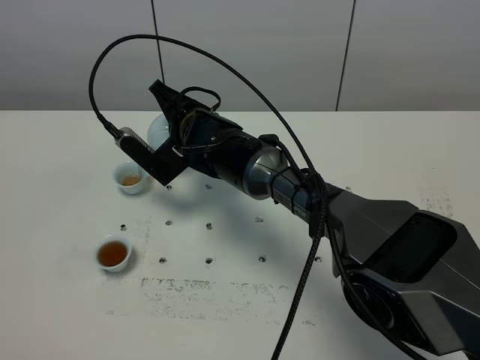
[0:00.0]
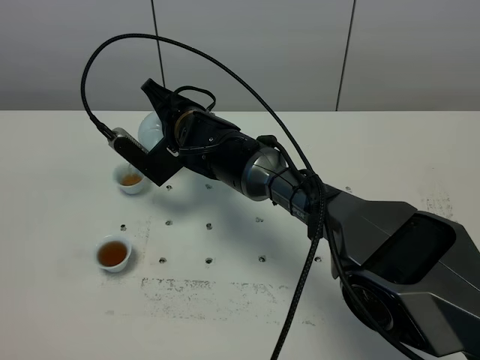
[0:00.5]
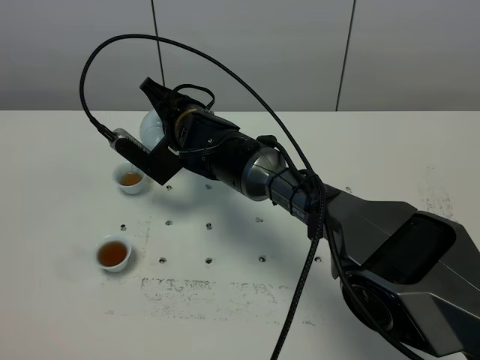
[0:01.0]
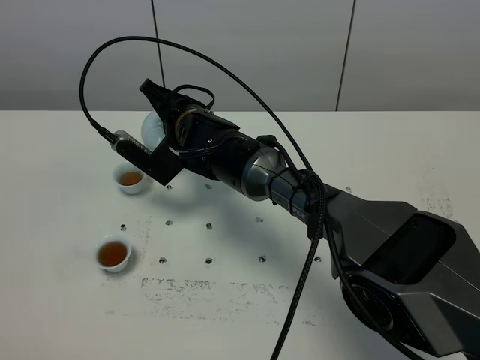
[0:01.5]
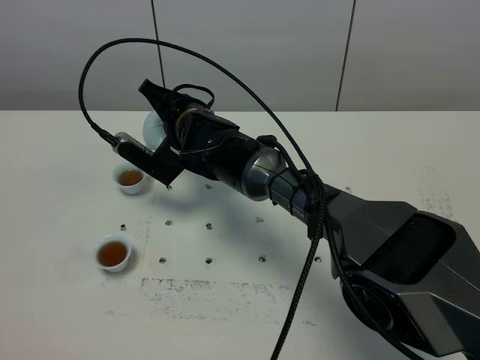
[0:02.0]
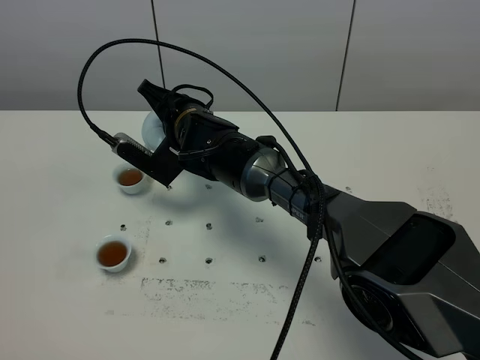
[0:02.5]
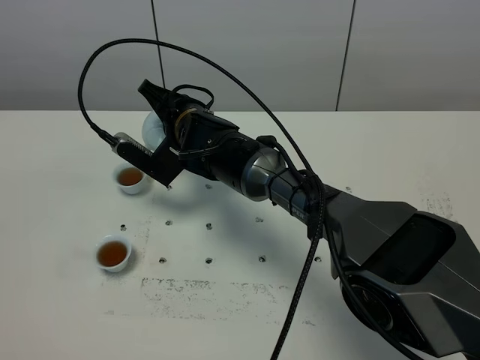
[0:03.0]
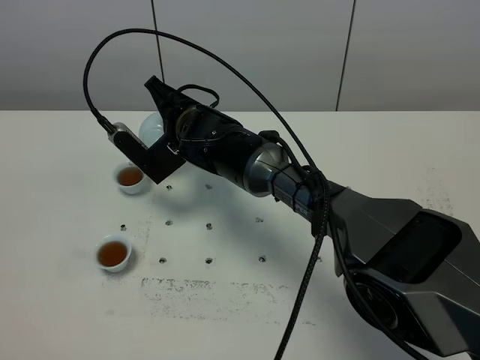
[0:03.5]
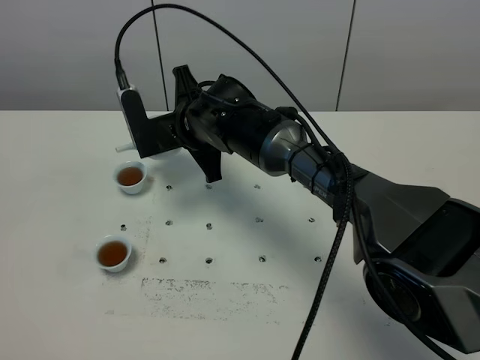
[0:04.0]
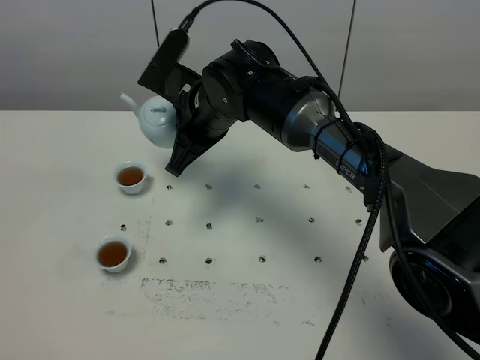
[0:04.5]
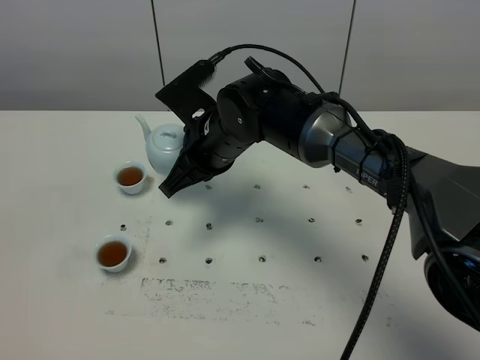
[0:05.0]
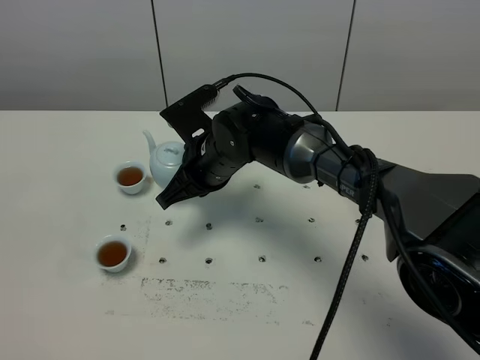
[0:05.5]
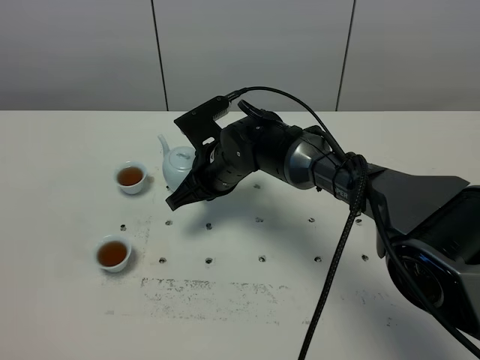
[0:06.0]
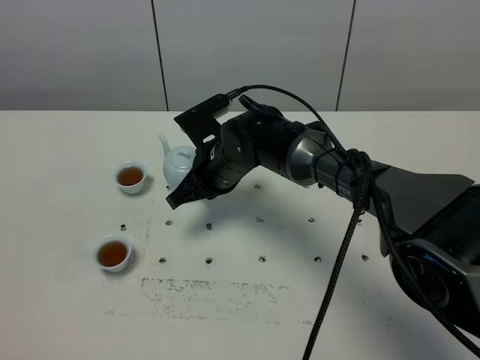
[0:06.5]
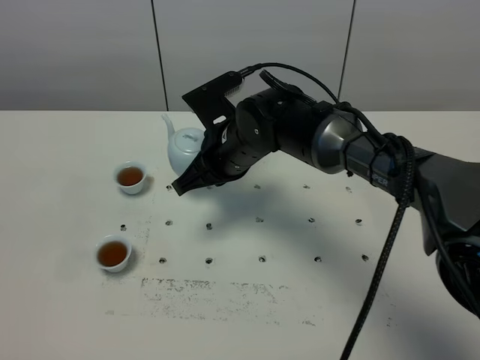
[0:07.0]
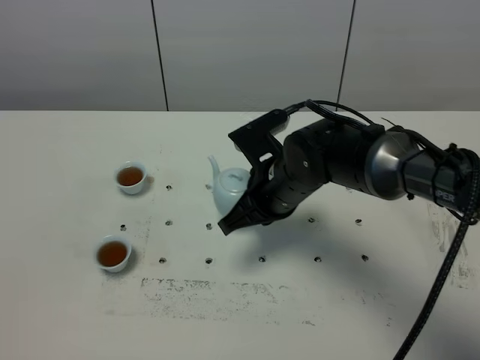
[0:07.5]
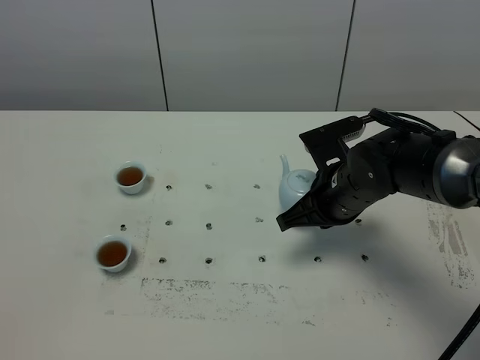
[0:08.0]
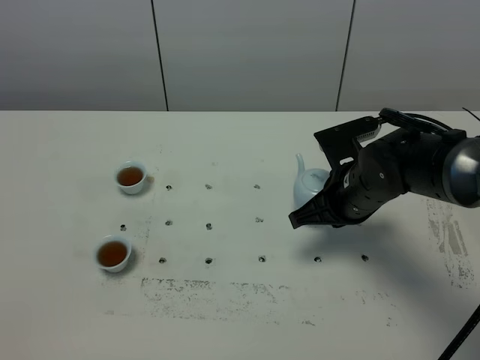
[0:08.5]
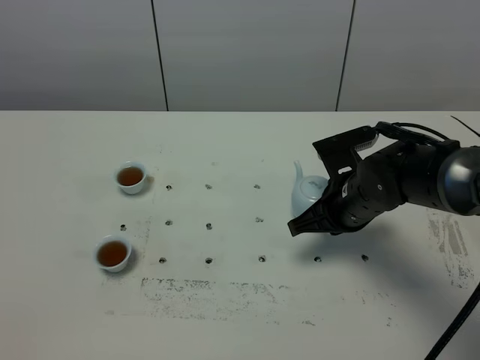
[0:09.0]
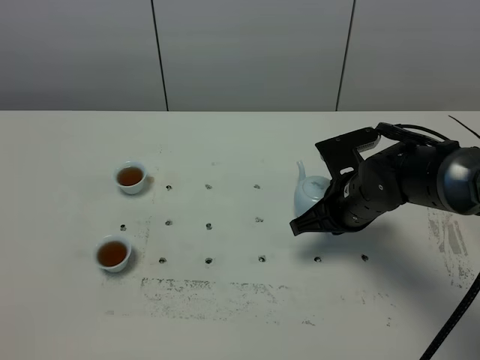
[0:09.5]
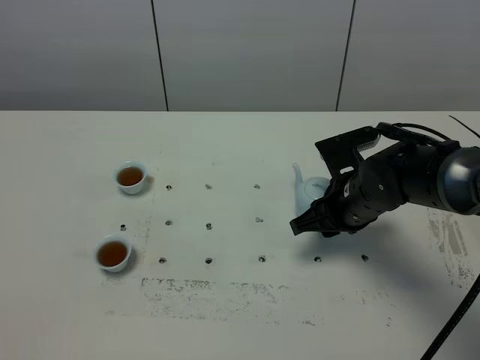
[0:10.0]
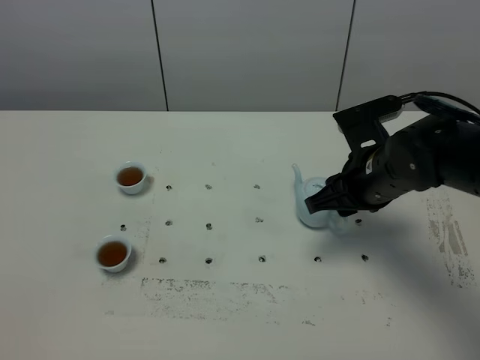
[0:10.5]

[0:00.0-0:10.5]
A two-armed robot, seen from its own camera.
Task of the whole recording: grasp the blue porcelain teapot and pour the tea into the two blue porcelain teacups one by one, put the blue porcelain teapot back in its original place.
Step, 0:00.0 to 0:03.5: Pour tea into the teacup with the right gripper.
0:00.0 to 0:02.0: The grippers make only small movements.
0:04.0 to 0:06.5: The right gripper goes approximately 5 cm downward.
0:06.5 to 0:08.5: The right gripper goes about 15 cm to the right.
0:08.5 to 0:10.5: The right gripper changes place by approximately 5 cm, and opens its fingers.

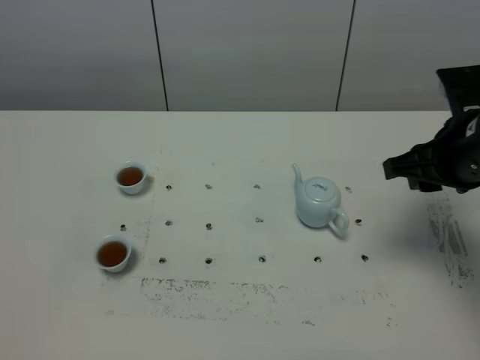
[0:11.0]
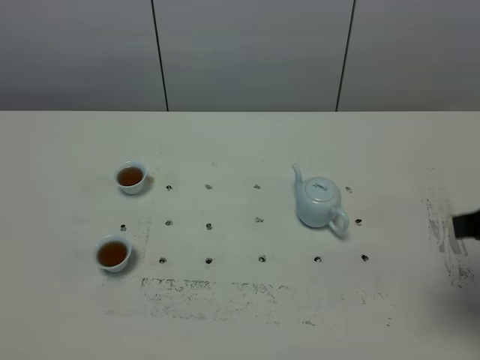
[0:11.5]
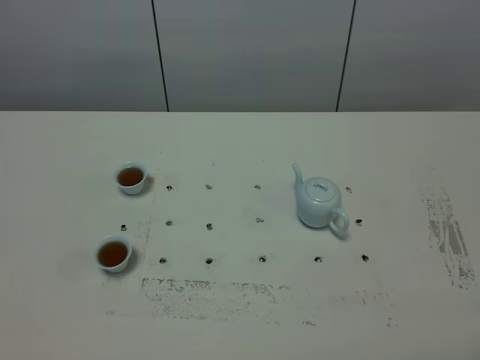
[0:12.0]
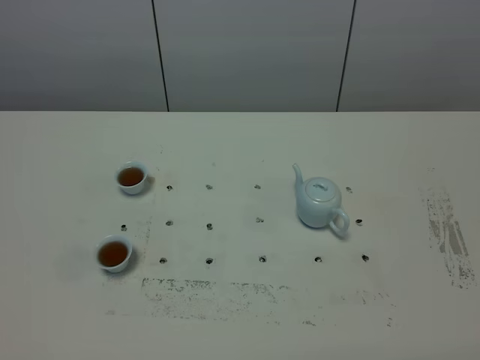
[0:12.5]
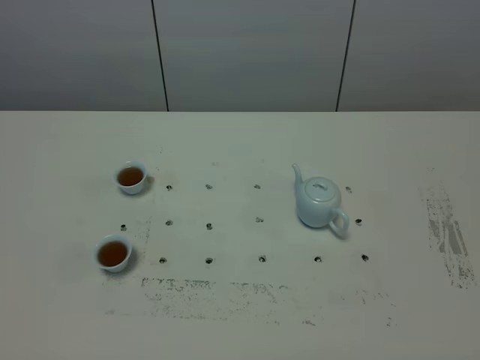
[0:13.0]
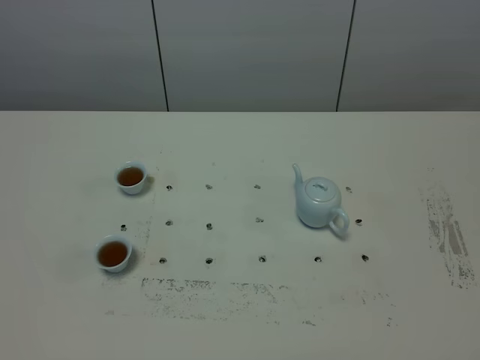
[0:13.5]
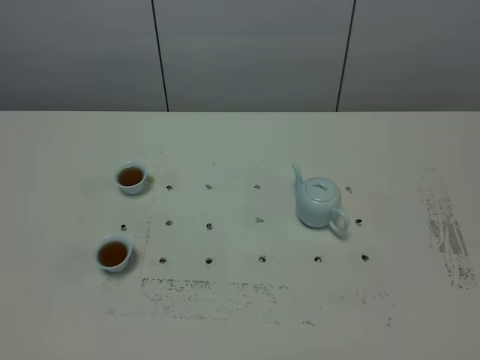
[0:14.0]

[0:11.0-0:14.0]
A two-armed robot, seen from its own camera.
Task of the whole recording: grasp the blue porcelain teapot and pour the tea into the two blue porcelain teacups one by one, put the blue porcelain teapot back in its original place.
0:11.0 to 0:12.5: The right gripper moves backward, about 30 cm.

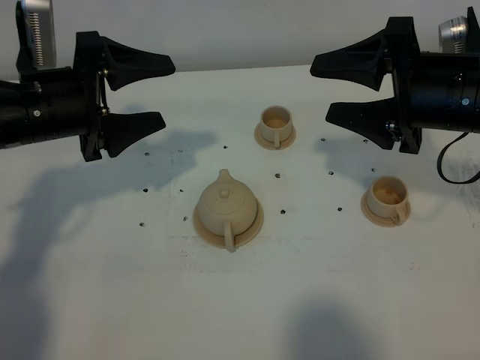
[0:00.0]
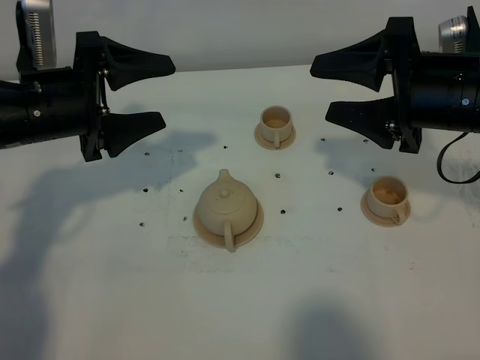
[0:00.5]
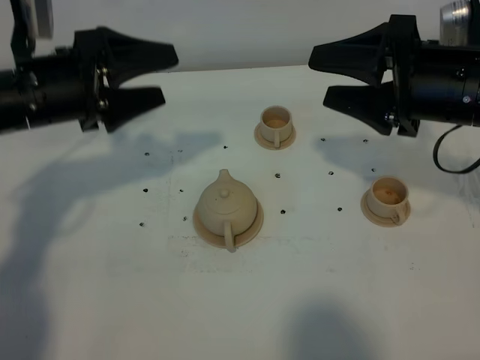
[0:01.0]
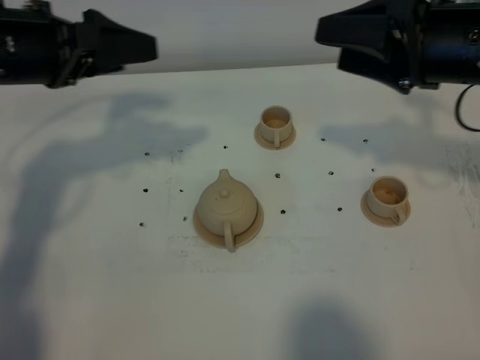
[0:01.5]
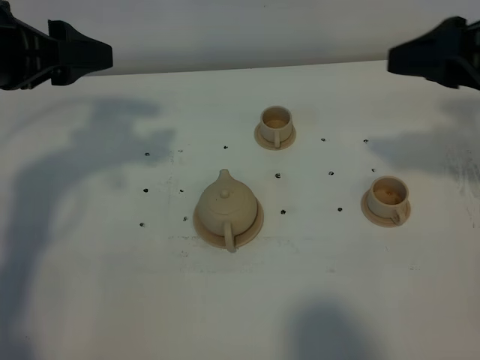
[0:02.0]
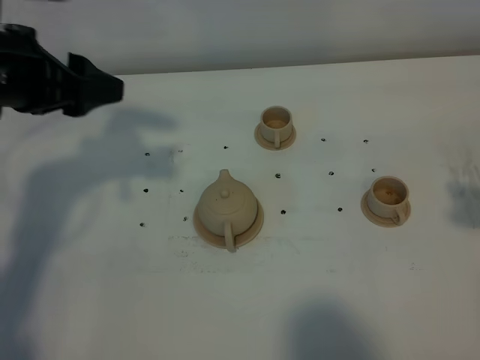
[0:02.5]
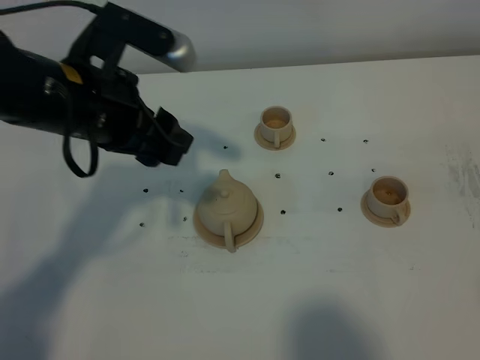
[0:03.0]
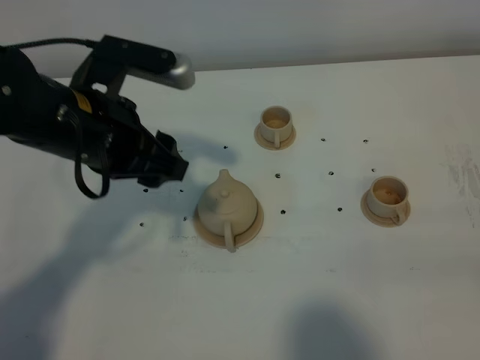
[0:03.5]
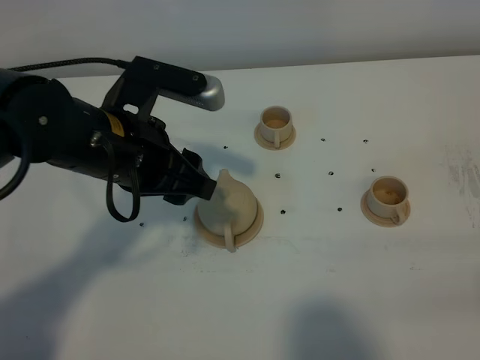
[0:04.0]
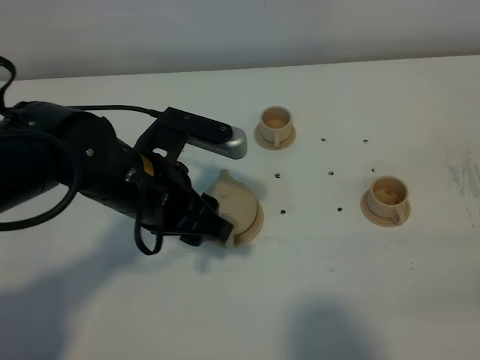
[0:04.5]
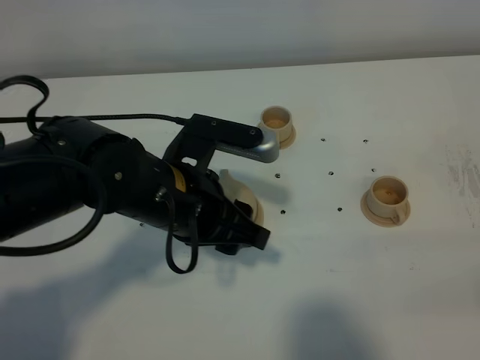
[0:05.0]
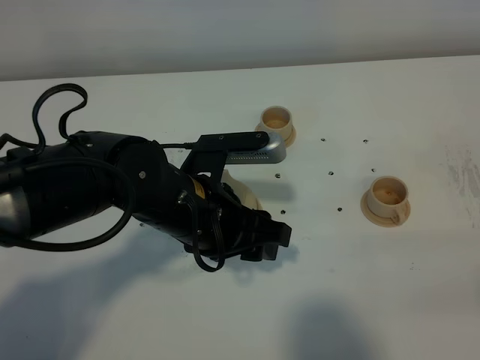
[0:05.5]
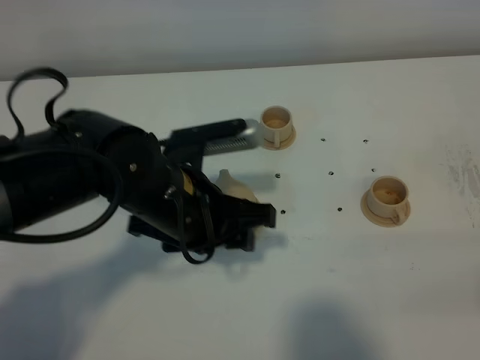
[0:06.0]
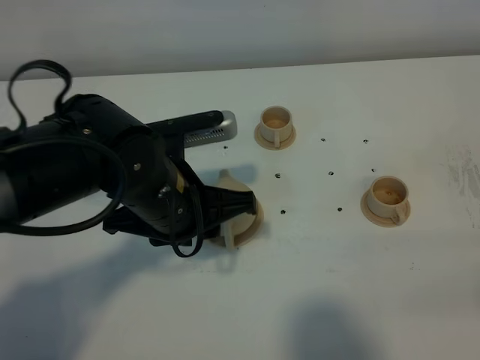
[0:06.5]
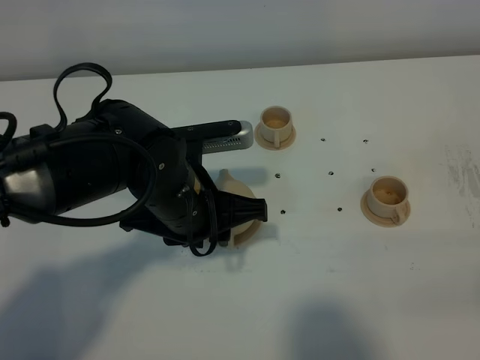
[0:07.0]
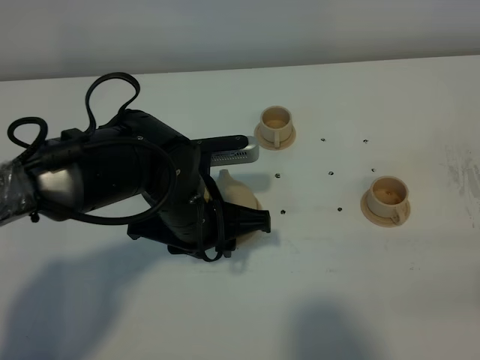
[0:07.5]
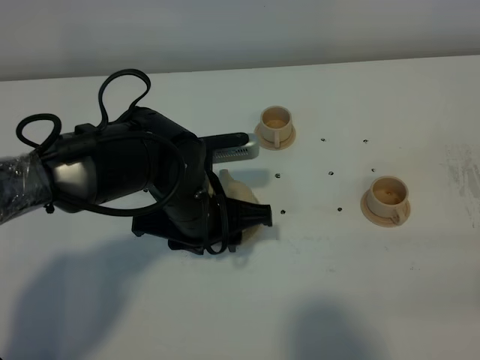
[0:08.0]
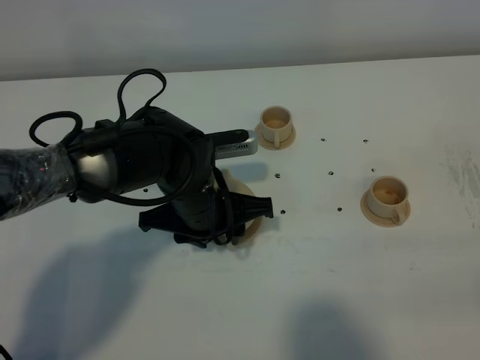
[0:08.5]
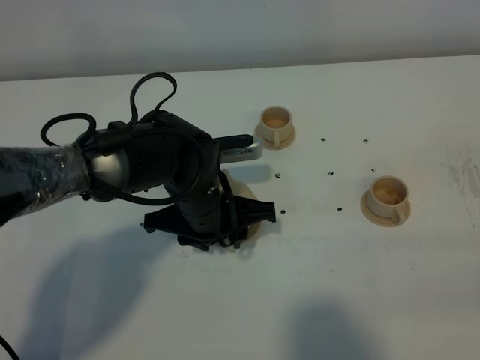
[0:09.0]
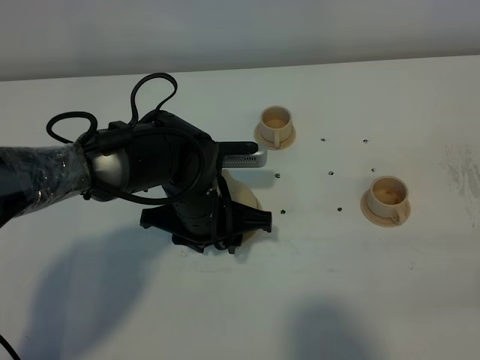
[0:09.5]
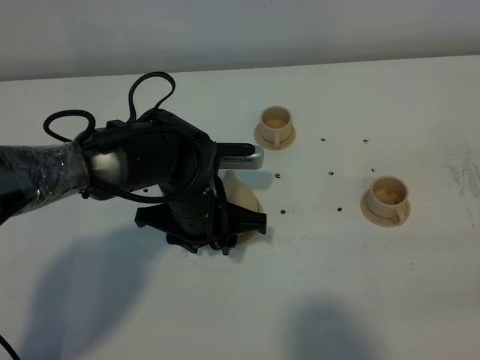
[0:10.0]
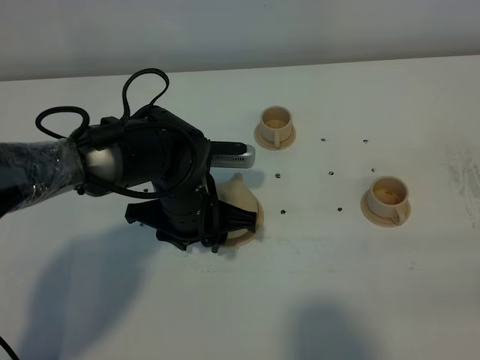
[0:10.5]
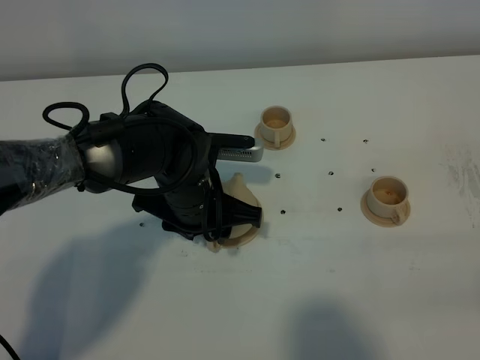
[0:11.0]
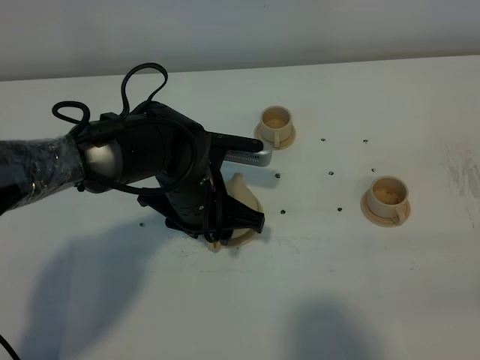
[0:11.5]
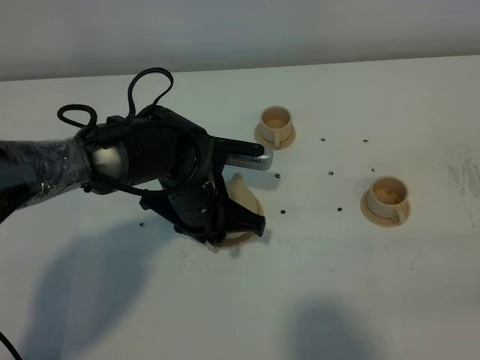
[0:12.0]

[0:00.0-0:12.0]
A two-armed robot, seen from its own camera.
Task of the whole recording: grasp the brown teapot and pour the tea into the two brown teacups one by one, put the brown teapot back in its original place.
0:00.0 to 0:02.0: The right gripper travels upward and to the right by roughly 10 cm; the left gripper travels upward by approximately 10 cm.
0:02.0 to 0:04.0: The right gripper travels backward by about 30 cm, while the left gripper moves to the right and downward, approximately 15 cm.
0:04.0 to 0:06.0: The left gripper goes some 5 cm to the right.
0:06.0 to 0:08.0: The left gripper travels downward by roughly 5 cm.
0:08.0 to 0:10.0: There are only small adjustments of the grippers.
0:10.0 to 0:12.0: The left gripper closes up.
